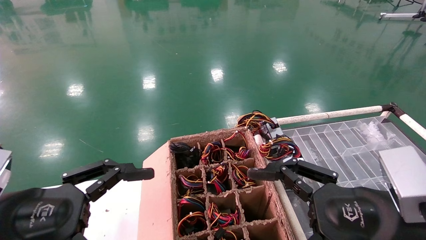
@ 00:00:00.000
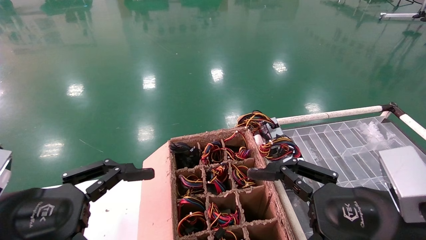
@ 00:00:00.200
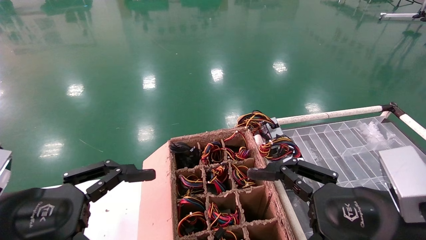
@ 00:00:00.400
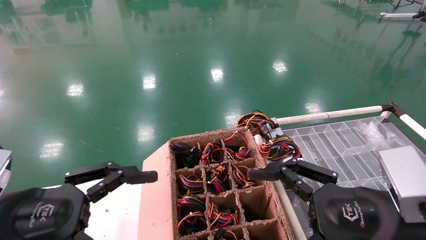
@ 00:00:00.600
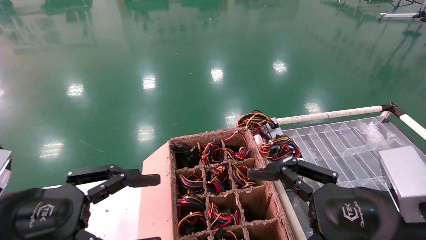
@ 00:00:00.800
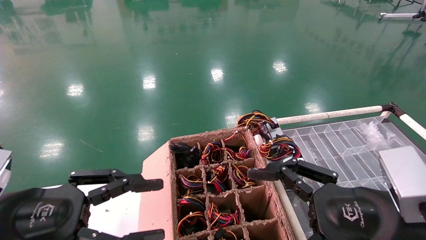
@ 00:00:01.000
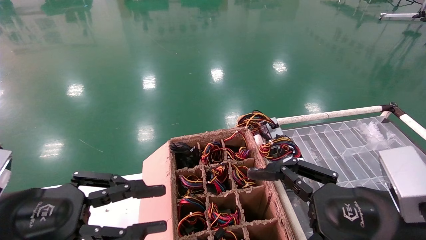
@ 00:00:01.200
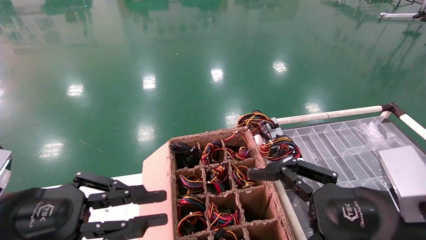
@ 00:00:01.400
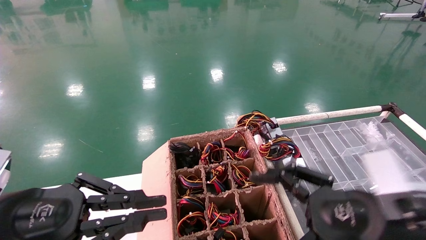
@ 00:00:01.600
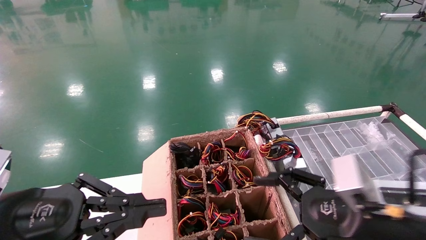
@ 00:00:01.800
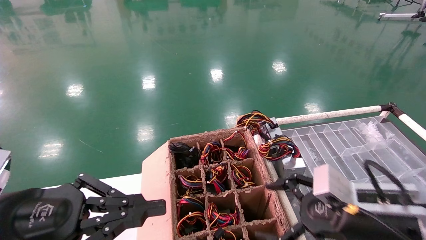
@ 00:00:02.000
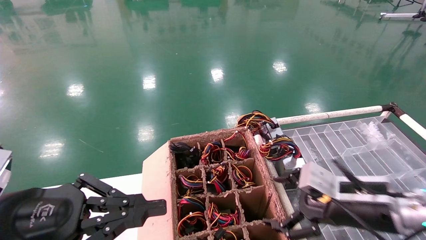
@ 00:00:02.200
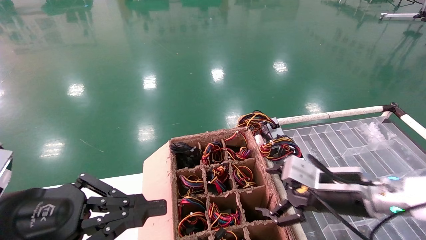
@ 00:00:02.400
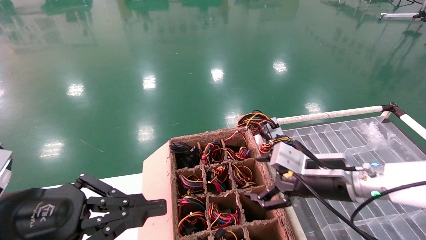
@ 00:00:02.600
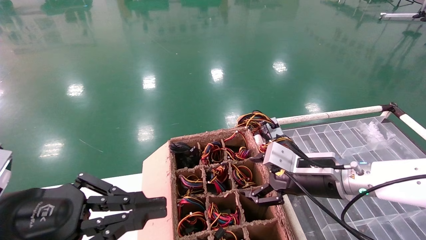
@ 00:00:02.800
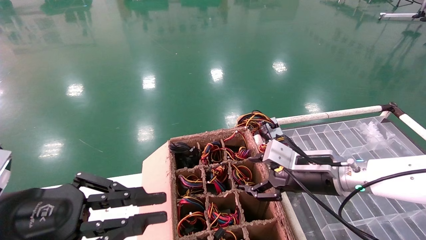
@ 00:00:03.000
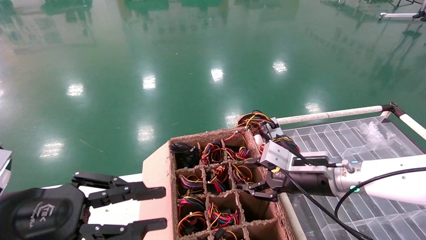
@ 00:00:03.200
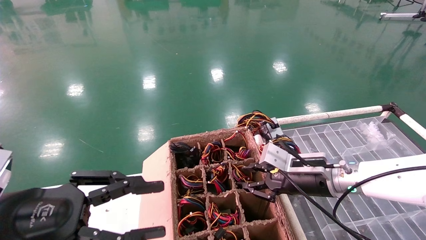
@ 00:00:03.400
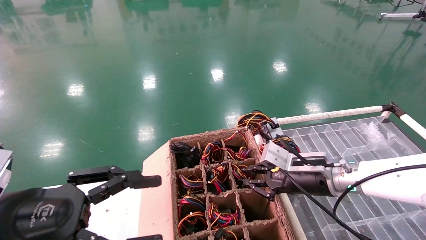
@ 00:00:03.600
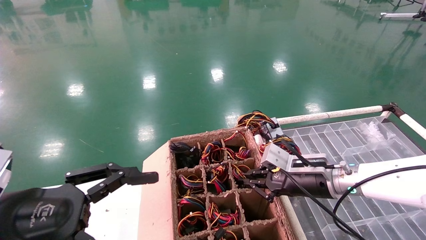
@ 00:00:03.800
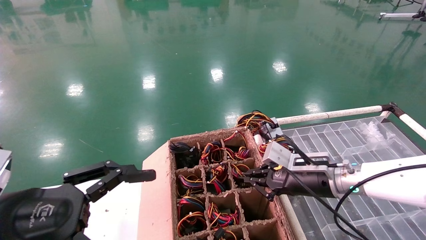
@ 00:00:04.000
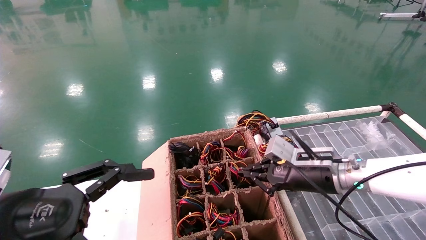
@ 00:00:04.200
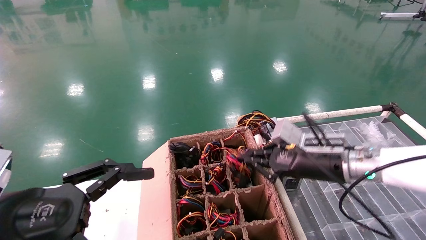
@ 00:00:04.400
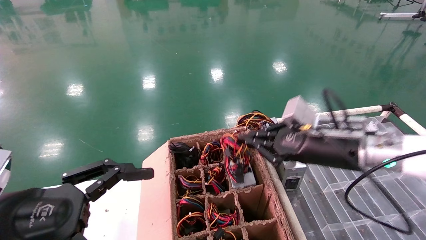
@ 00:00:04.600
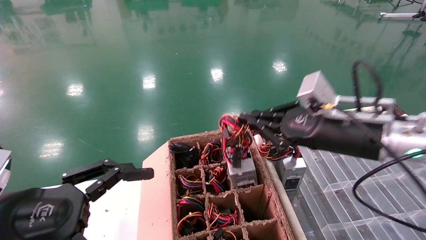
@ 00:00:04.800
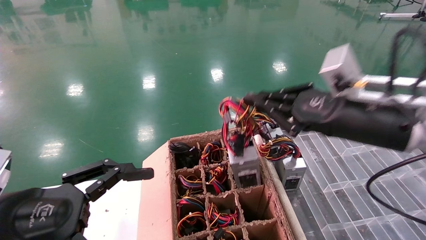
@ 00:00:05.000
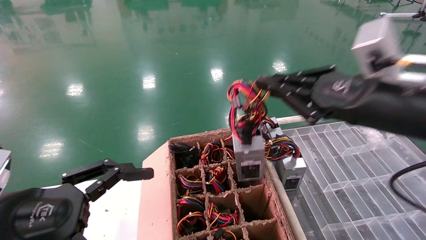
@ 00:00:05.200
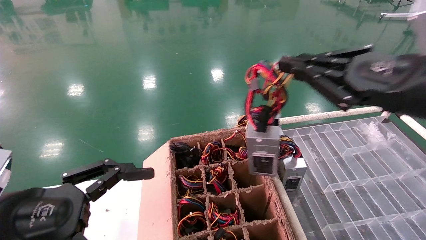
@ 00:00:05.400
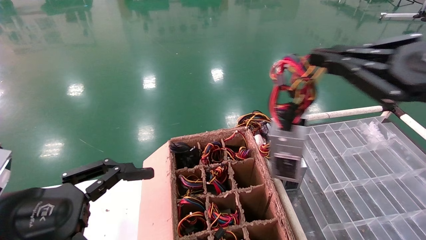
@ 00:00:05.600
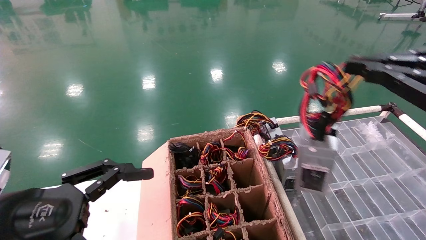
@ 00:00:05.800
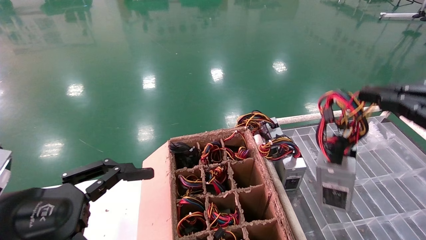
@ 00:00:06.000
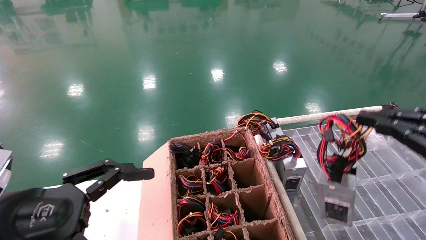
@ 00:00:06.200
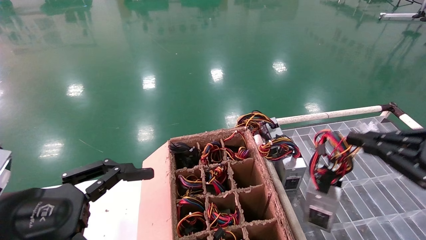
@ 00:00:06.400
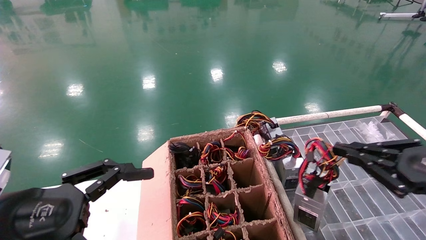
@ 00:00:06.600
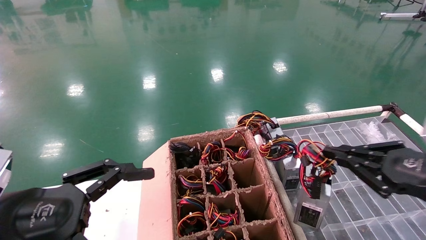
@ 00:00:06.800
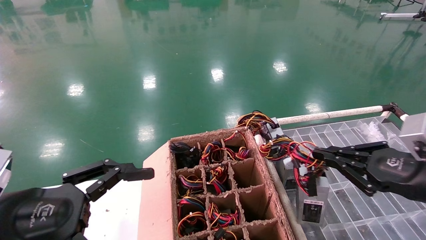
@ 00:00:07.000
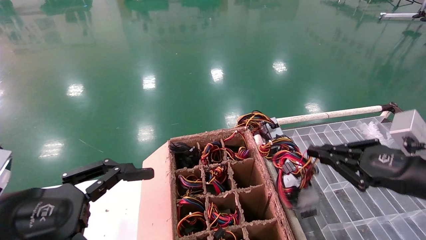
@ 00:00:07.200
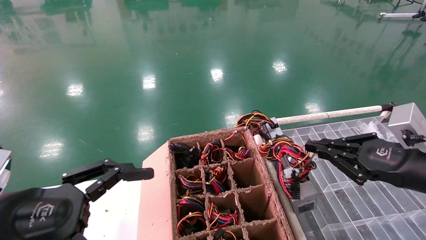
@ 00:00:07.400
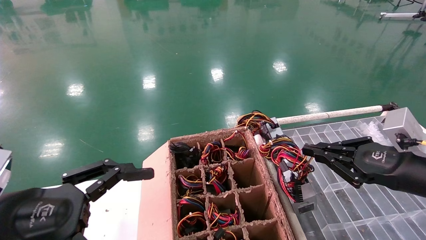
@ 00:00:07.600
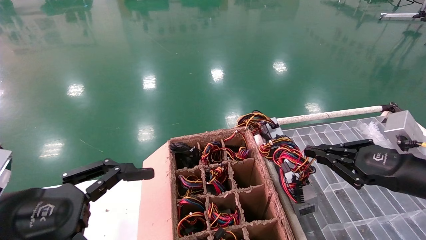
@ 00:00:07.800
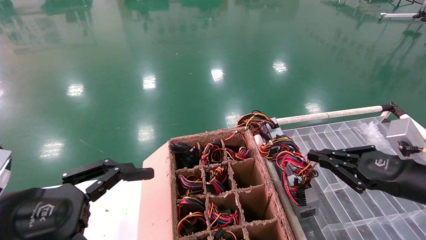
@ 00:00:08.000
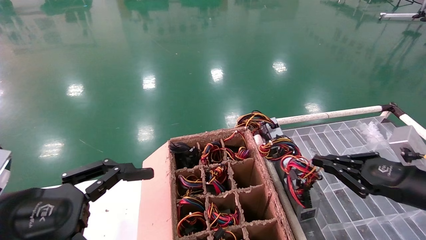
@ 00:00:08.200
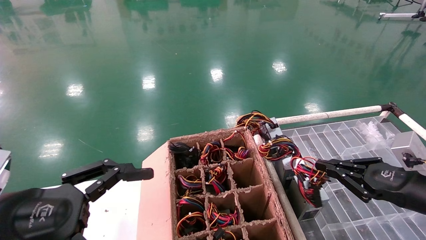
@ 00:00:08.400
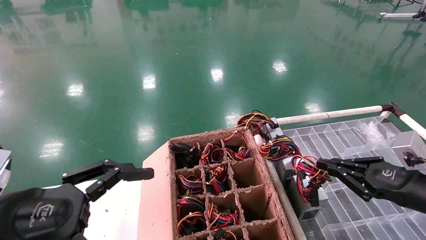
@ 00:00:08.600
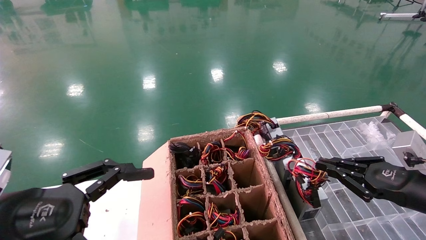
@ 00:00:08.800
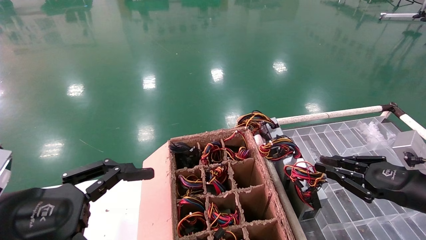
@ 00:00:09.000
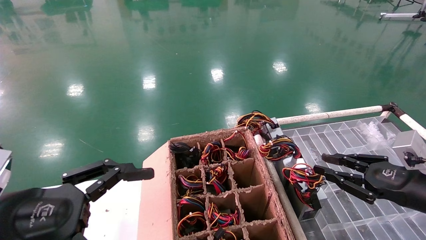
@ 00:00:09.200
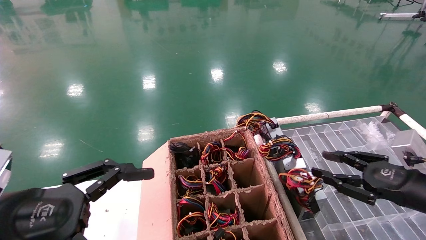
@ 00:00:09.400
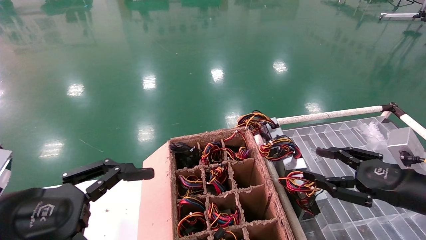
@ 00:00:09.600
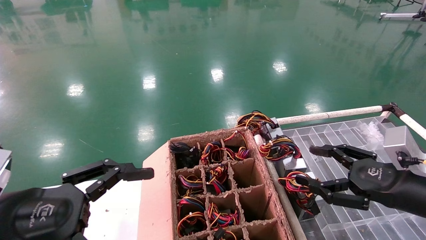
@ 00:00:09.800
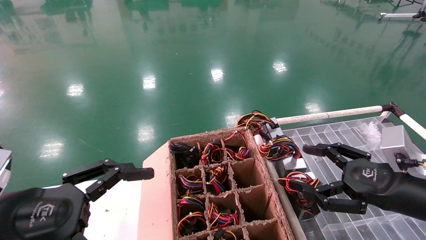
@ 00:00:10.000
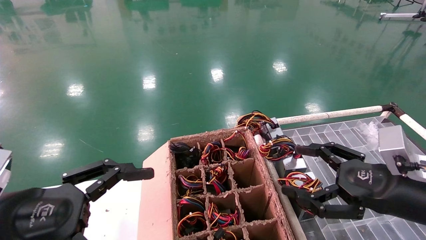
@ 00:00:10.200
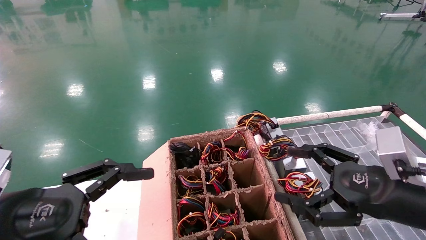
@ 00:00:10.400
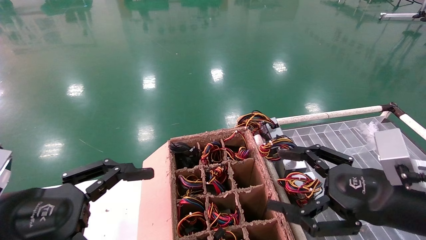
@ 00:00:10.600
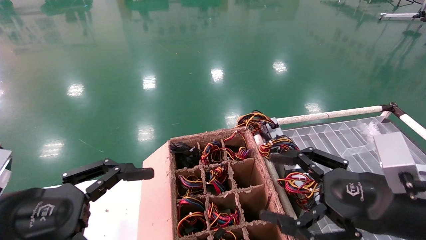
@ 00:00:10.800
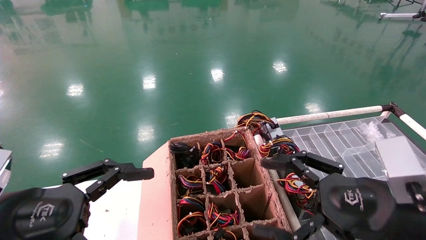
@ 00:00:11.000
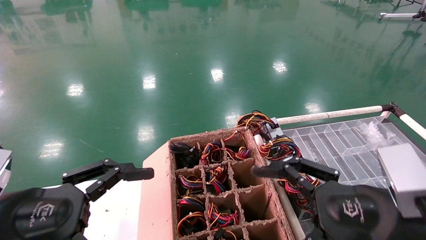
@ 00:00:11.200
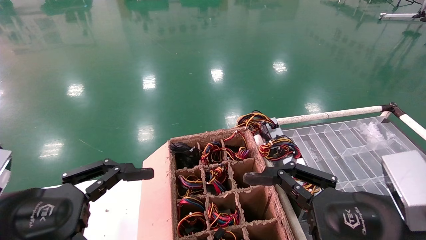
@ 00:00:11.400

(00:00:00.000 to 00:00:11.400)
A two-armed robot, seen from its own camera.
Step, 00:00:02.000 - 00:00:04.200: Grab and lift the power supply from the large box.
Step, 00:00:04.400 - 00:00:09.000: Place the power supply on the operating table.
00:00:00.000 - 00:00:01.400: The left gripper closes its fingers.
00:00:01.400 - 00:00:02.800: The right gripper heads forward, covering roughly 15 cm.
00:00:02.800 - 00:00:04.200: The right gripper closes, while the left gripper opens up.
00:00:04.200 - 00:00:05.600: The right gripper goes about 25 cm backward, upward and to the right.
00:00:05.600 - 00:00:07.200: The right gripper heads downward and forward, covering some 15 cm.
00:00:07.200 - 00:00:08.600: The right gripper travels downward by roughly 5 cm.
00:00:08.600 - 00:00:10.000: The right gripper is displaced to the left by approximately 5 cm, and opens up.
00:00:10.000 - 00:00:11.400: The right gripper is displaced to the left and backward by roughly 10 cm.
